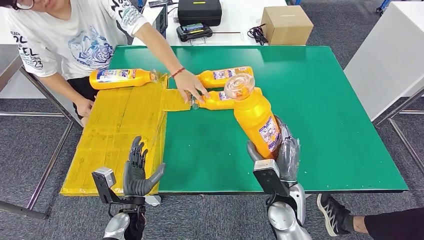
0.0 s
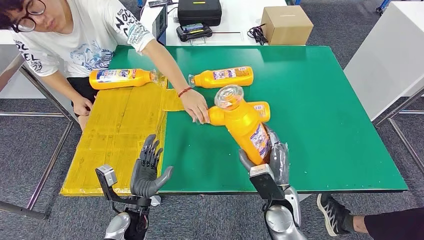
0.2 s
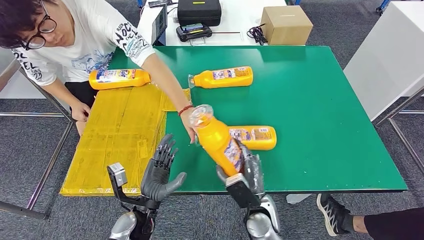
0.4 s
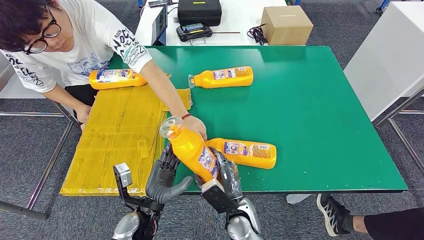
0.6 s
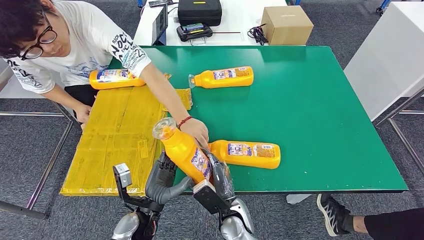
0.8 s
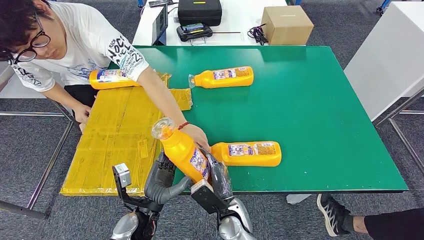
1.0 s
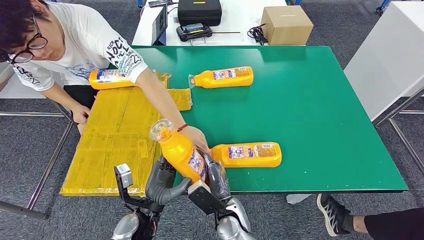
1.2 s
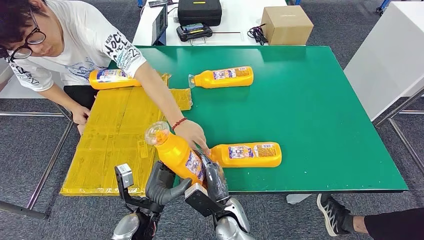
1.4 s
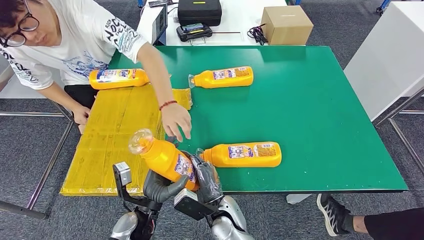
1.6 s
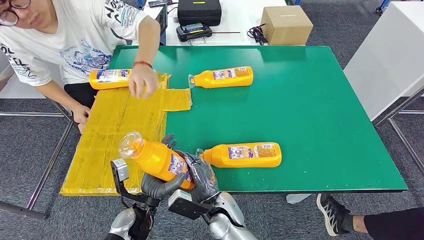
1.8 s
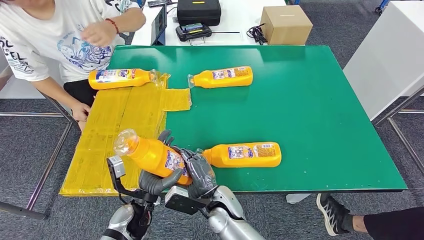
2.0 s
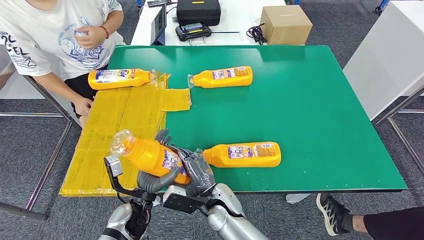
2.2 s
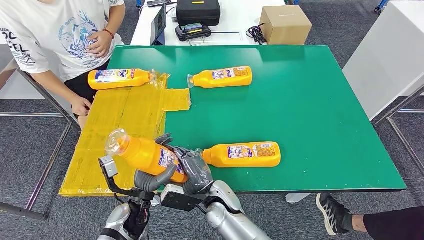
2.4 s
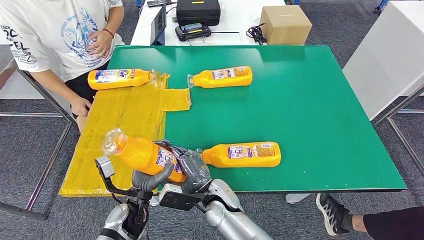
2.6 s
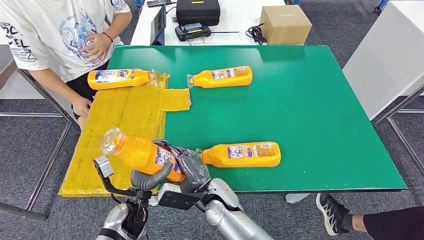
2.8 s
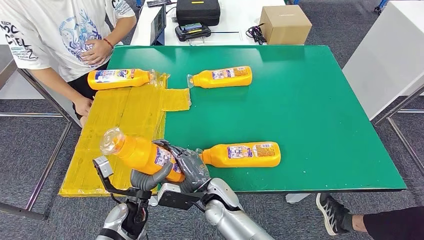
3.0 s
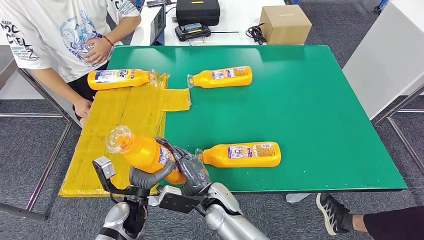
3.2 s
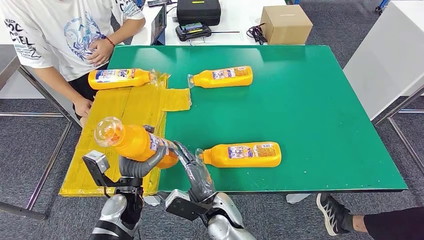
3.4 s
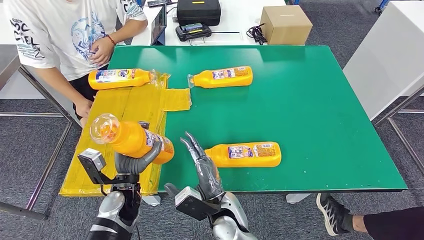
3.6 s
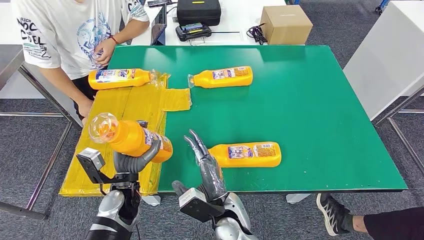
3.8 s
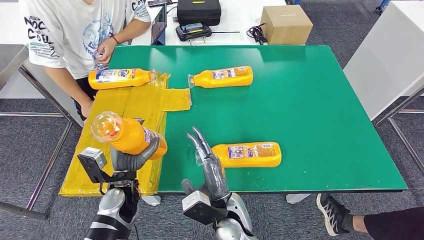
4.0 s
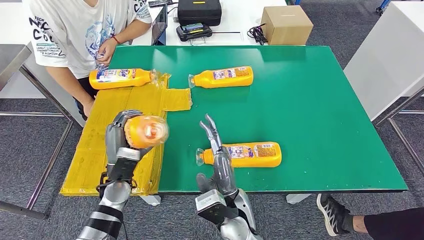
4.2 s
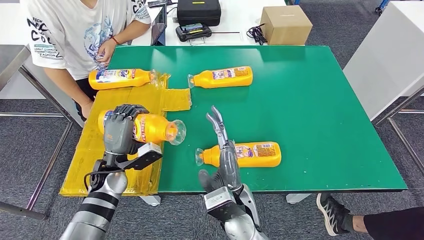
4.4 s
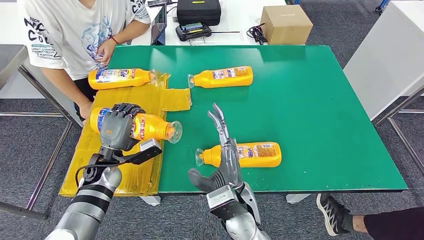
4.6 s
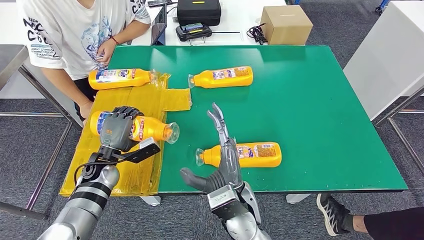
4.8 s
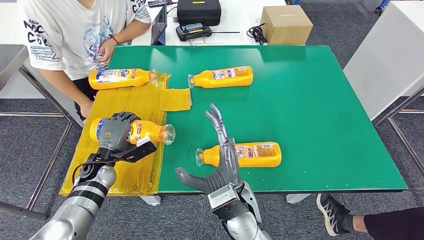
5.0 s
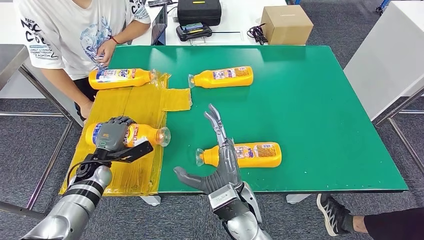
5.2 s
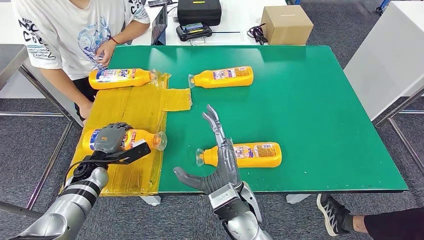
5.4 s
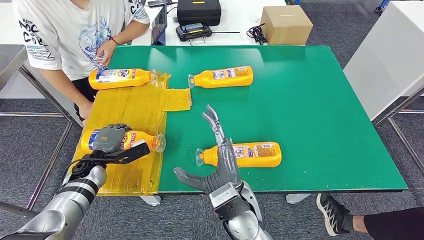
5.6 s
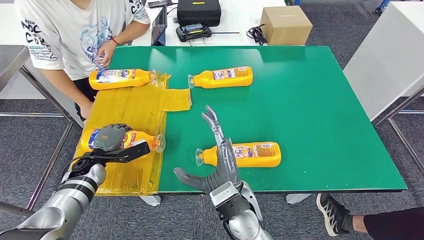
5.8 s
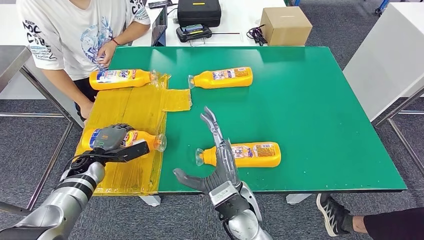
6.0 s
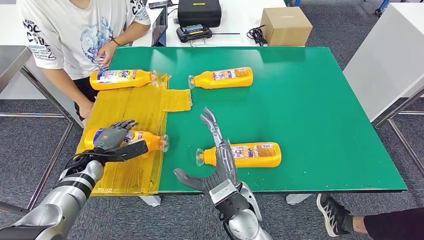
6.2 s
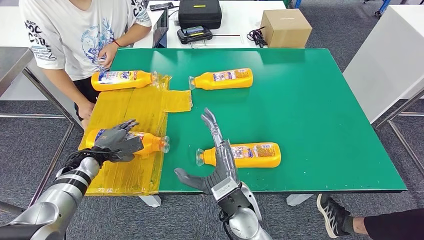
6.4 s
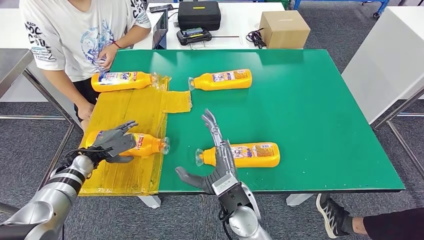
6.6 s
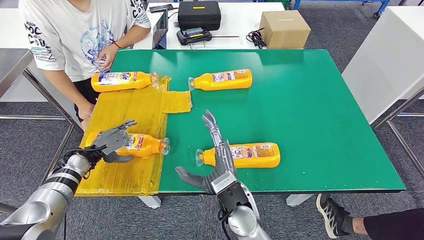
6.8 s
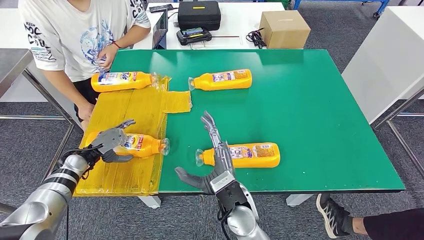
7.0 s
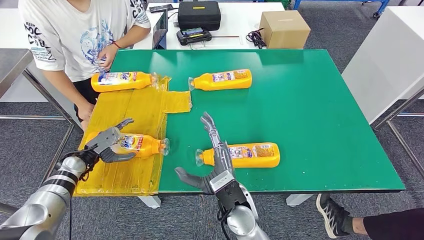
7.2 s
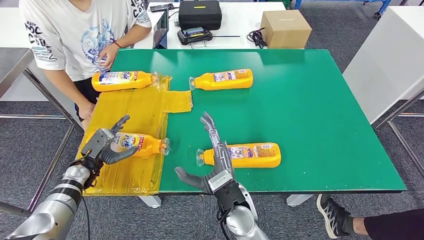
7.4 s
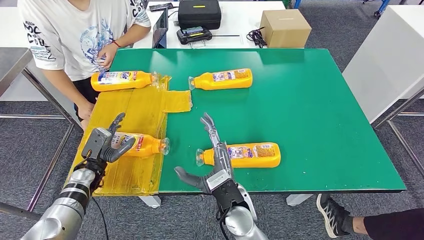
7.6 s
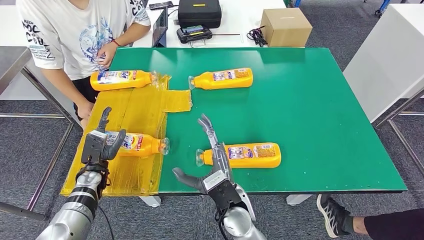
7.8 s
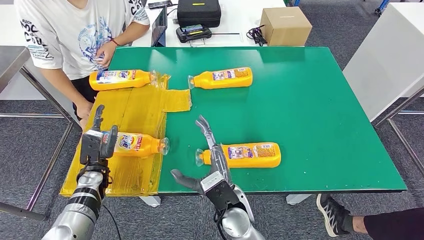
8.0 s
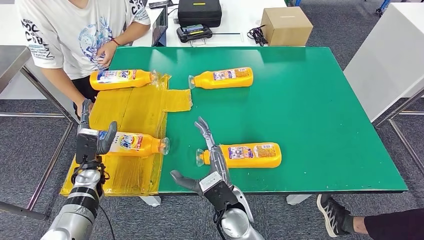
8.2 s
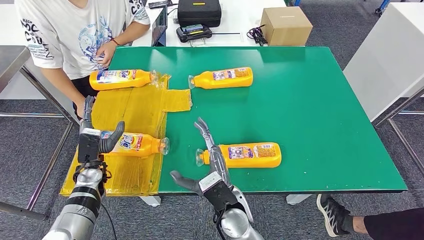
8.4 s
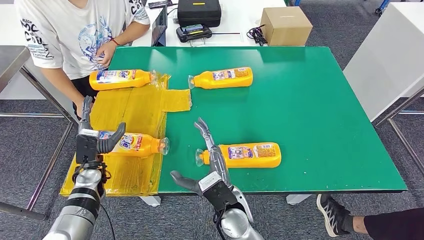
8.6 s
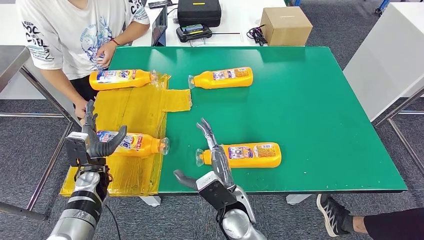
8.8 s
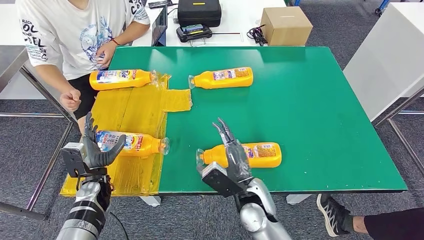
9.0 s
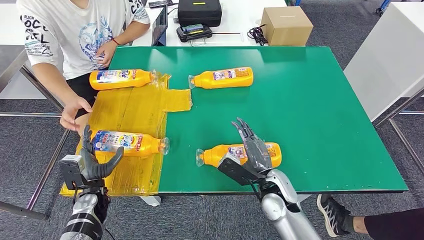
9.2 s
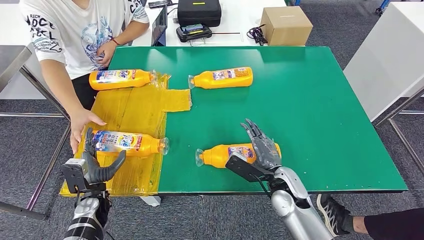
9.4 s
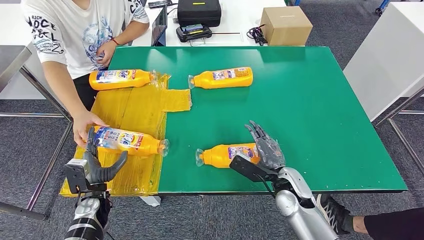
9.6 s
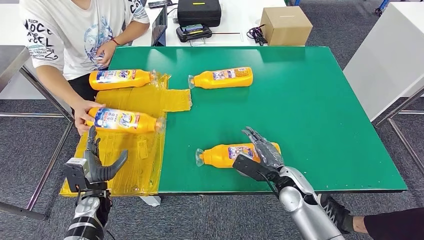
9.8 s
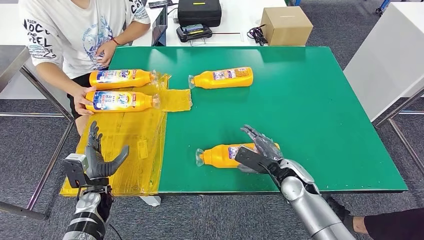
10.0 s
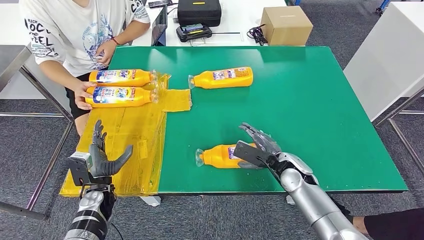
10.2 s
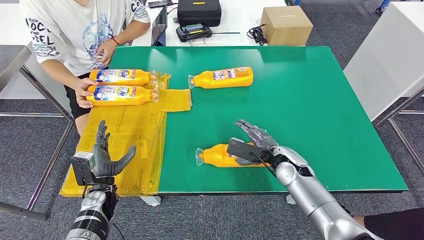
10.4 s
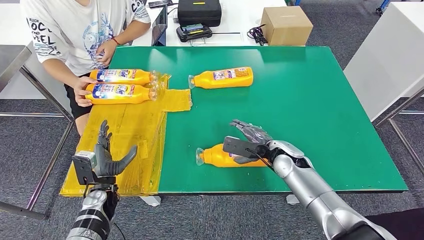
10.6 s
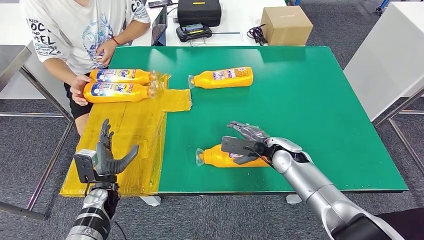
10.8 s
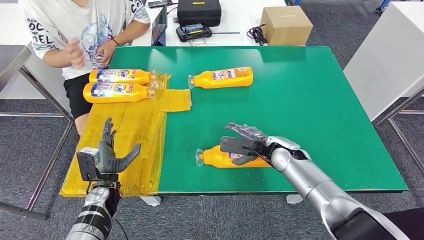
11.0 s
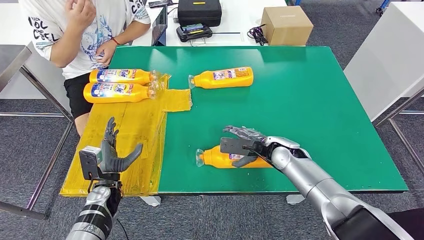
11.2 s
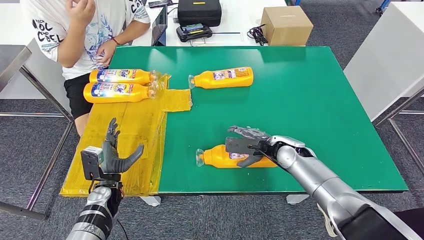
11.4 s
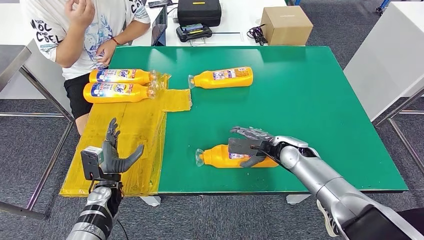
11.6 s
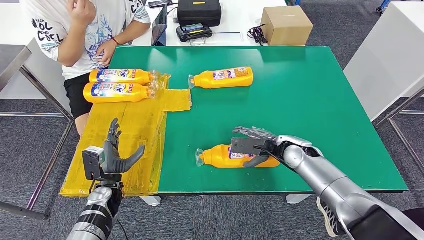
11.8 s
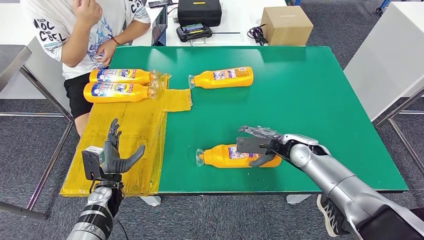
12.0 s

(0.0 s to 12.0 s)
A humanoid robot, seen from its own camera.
Step, 0.0 s - 2.4 s: Pick up the fast-moving consumer goods bottle from the table.
Step, 2.6 s - 7.0 s: Flip the fast-moving consumer goods bottle to the front side.
4.4 s - 6.0 s: The left hand is displaced to the left by about 10 cm.
7.6 s - 9.0 s: The left hand changes place by roughly 5 cm; the right hand shifts roughly 5 cm to the right.
9.0 s - 10.4 s: The right hand heads to the right and forward, covering about 15 cm.
10.4 s - 12.0 s: The right hand moves roughly 5 cm.

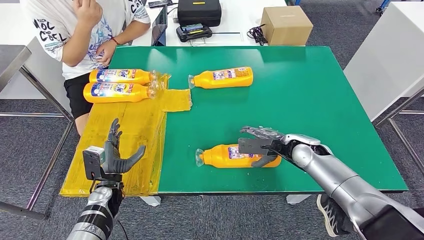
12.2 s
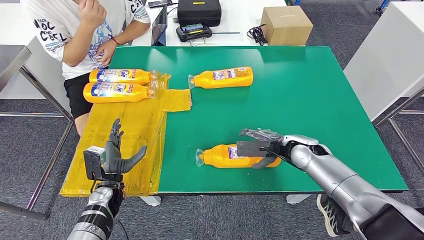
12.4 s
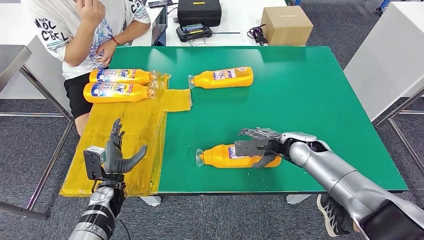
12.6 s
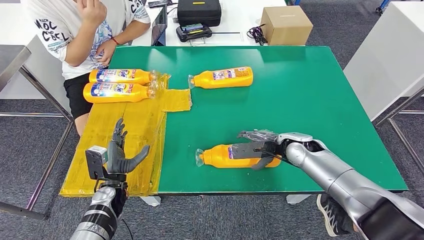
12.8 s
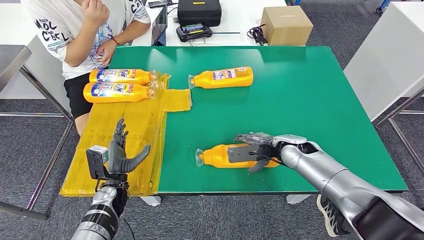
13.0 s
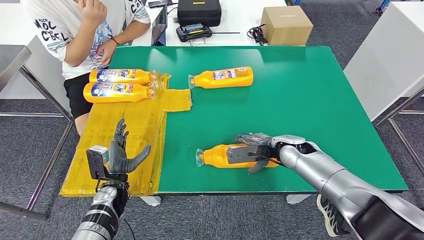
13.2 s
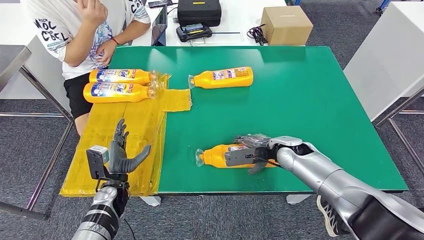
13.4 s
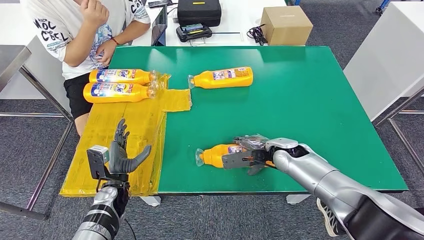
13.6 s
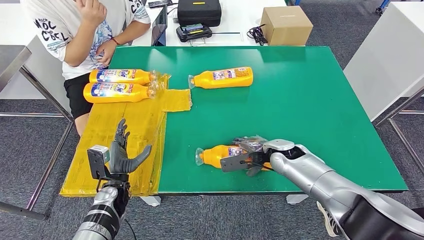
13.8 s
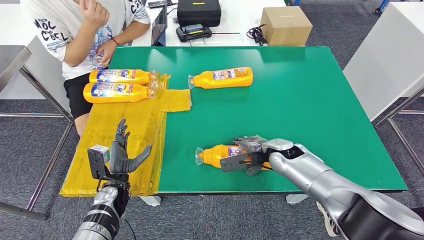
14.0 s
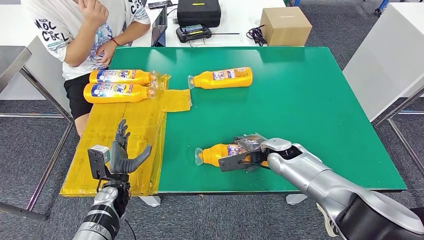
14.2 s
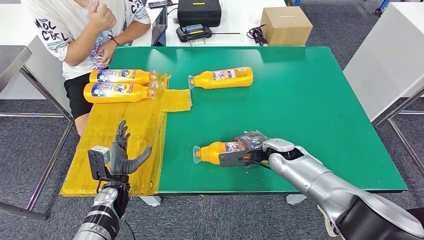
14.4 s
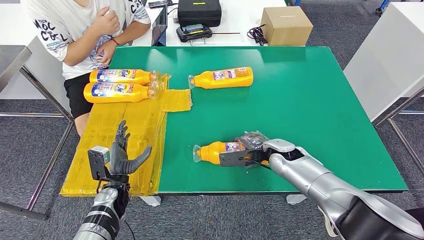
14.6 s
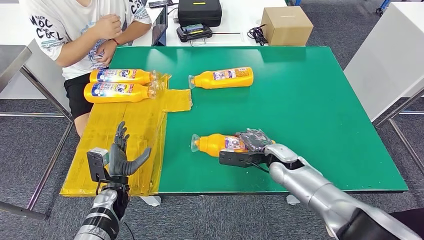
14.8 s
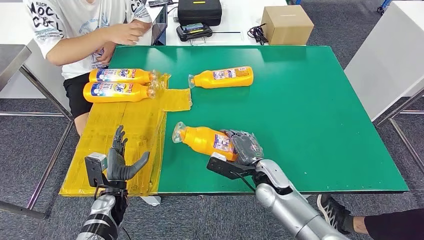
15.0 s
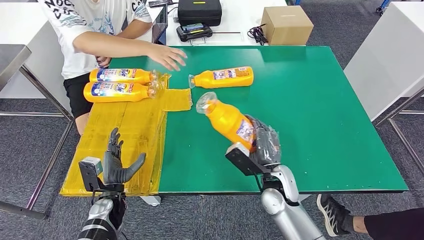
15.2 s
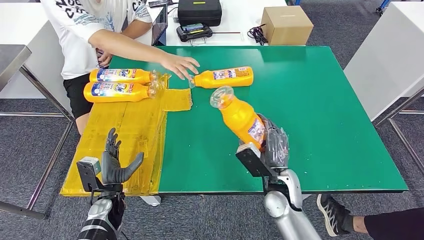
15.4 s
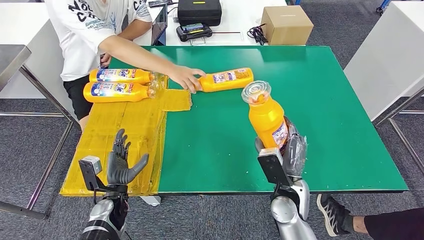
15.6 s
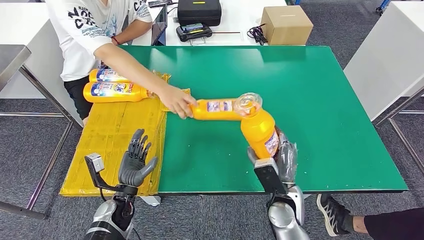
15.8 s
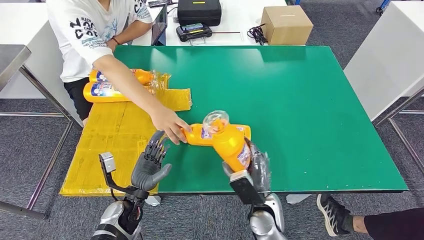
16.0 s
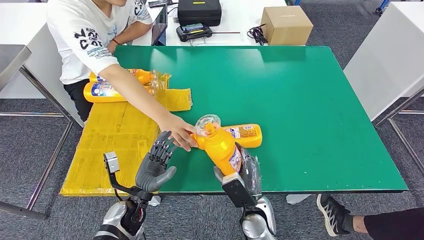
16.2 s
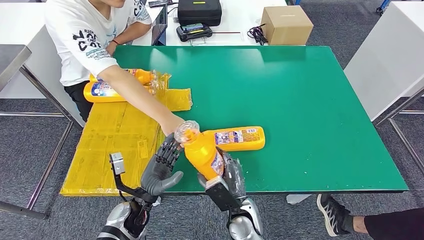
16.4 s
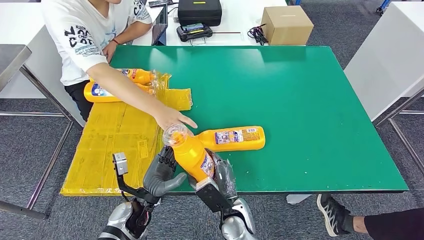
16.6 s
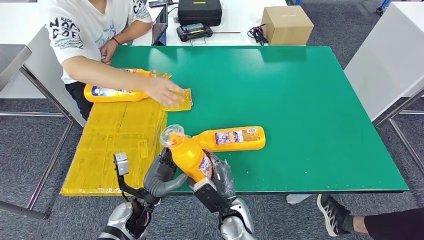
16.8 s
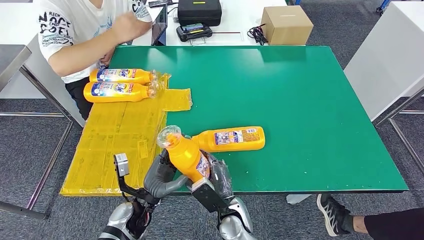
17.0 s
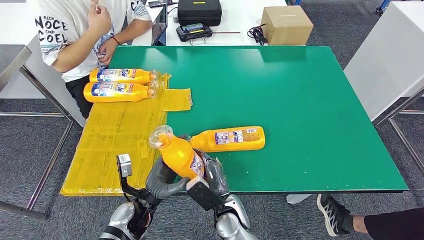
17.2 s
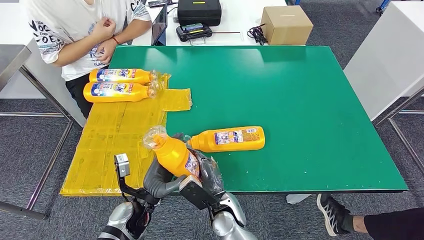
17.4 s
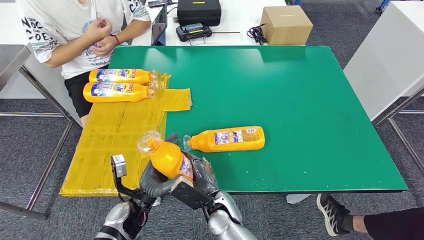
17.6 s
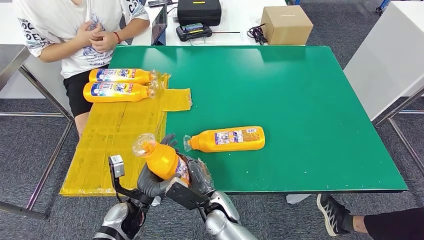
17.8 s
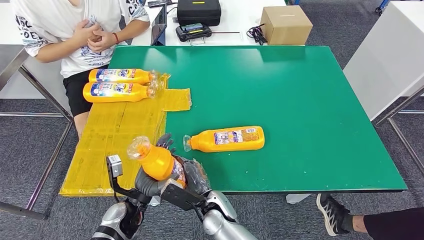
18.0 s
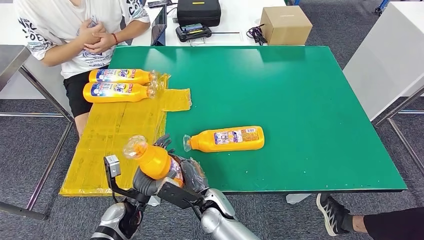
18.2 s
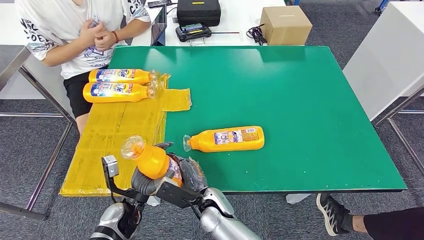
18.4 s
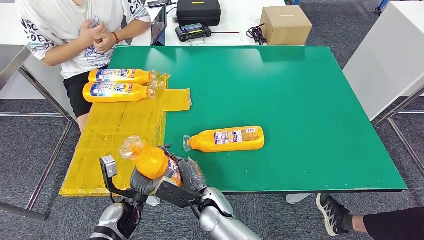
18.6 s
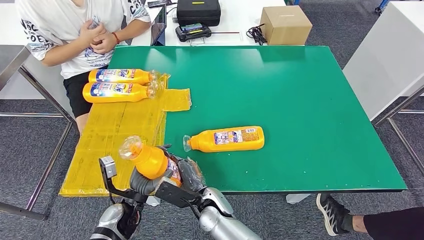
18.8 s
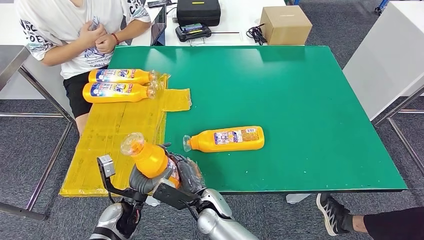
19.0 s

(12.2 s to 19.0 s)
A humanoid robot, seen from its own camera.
Step, 12.2 s - 17.0 s: Pick up the fast-moving consumer goods bottle from the table.
12.2 s - 13.6 s: The hands move only a little.
13.6 s - 15.0 s: The right hand travels backward and to the left by some 10 cm.
16.2 s - 17.6 s: The right hand goes roughly 10 cm to the left.
17.6 s - 19.0 s: The hands make only small movements.
